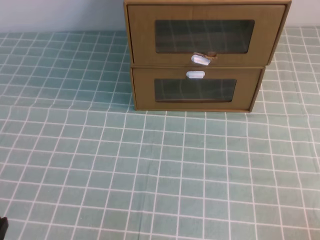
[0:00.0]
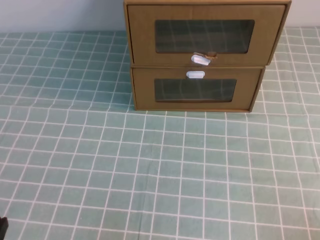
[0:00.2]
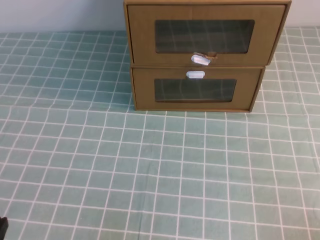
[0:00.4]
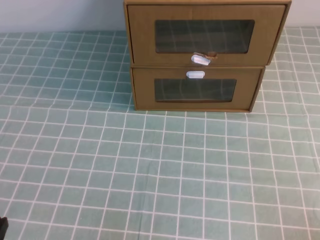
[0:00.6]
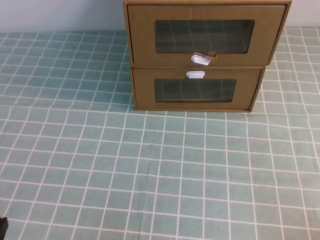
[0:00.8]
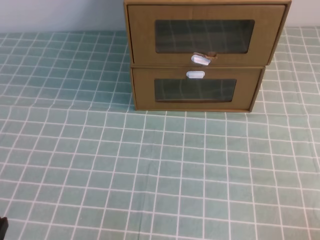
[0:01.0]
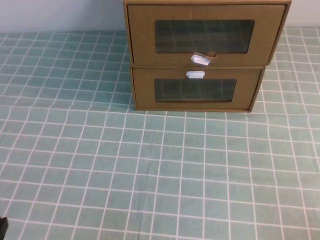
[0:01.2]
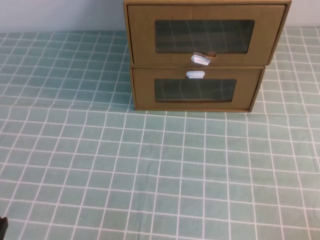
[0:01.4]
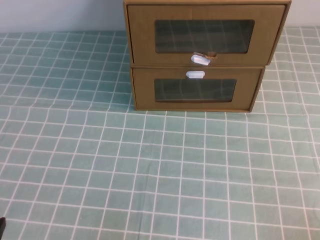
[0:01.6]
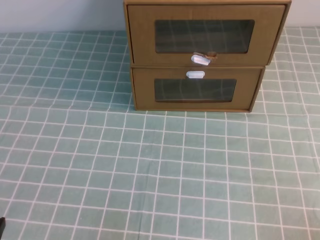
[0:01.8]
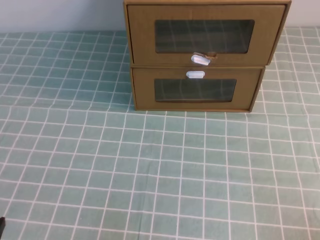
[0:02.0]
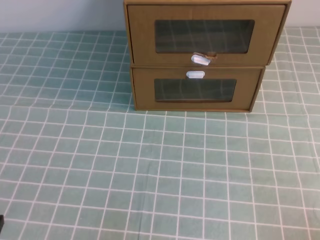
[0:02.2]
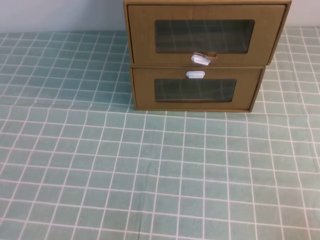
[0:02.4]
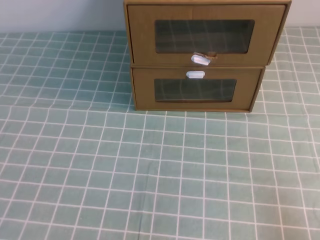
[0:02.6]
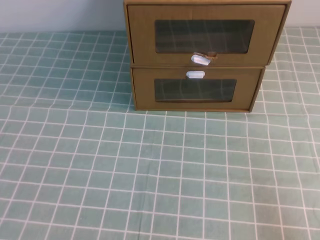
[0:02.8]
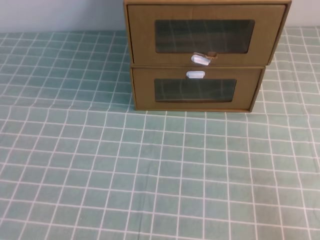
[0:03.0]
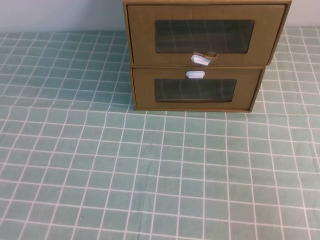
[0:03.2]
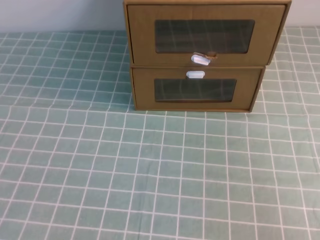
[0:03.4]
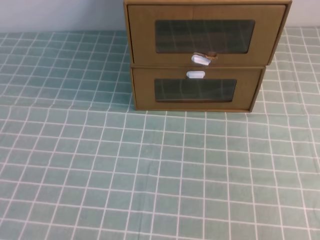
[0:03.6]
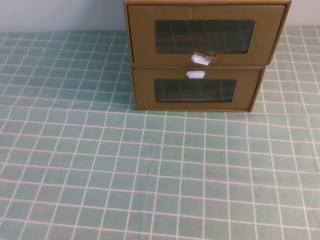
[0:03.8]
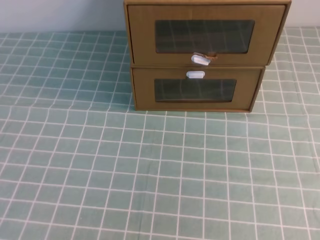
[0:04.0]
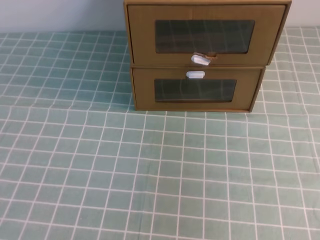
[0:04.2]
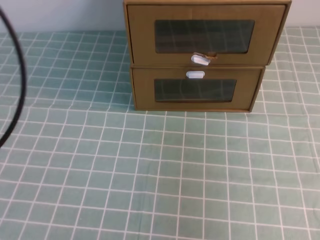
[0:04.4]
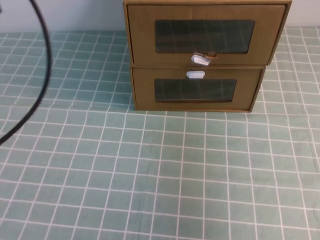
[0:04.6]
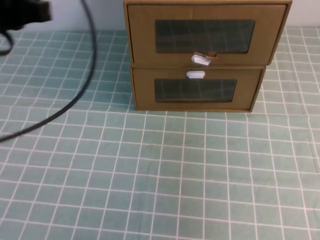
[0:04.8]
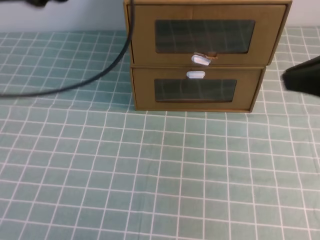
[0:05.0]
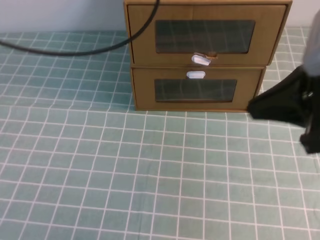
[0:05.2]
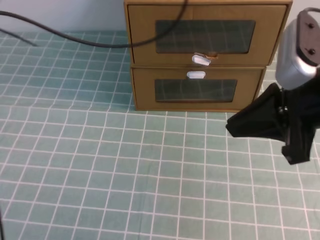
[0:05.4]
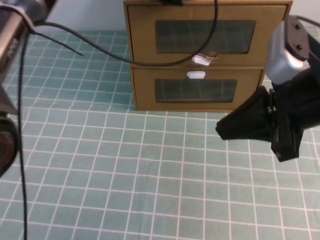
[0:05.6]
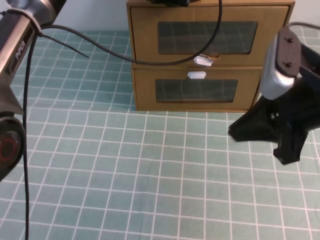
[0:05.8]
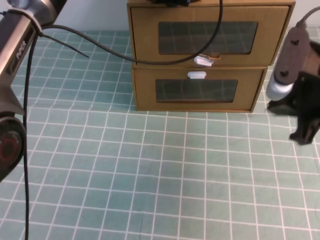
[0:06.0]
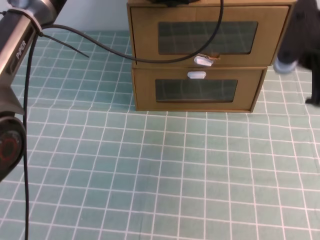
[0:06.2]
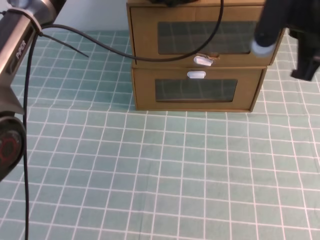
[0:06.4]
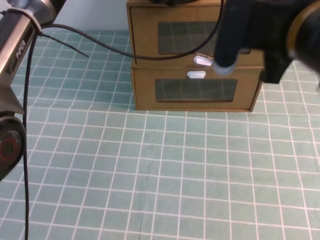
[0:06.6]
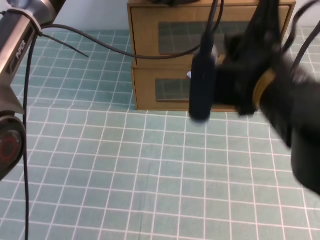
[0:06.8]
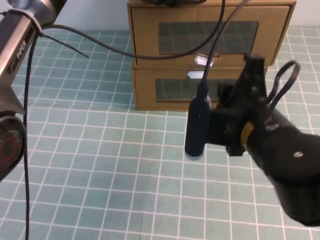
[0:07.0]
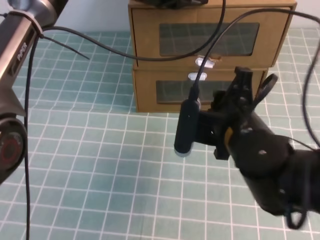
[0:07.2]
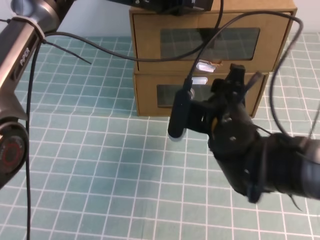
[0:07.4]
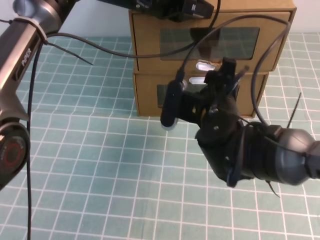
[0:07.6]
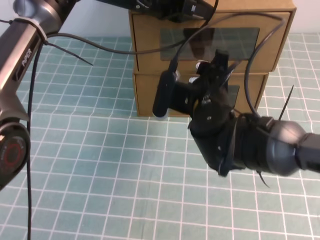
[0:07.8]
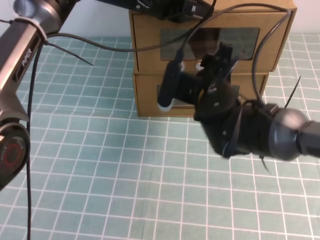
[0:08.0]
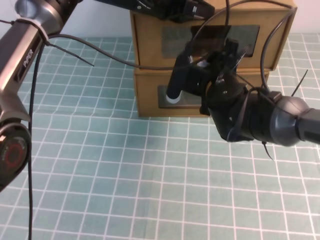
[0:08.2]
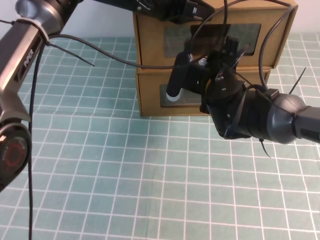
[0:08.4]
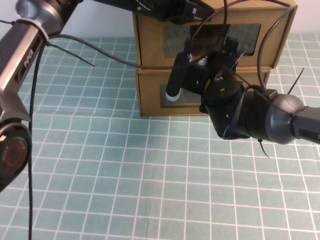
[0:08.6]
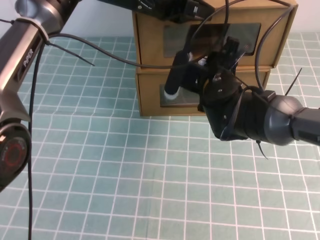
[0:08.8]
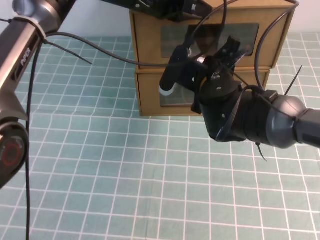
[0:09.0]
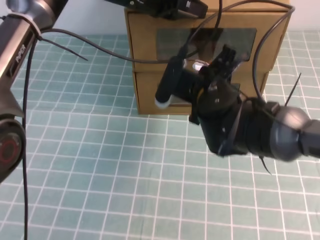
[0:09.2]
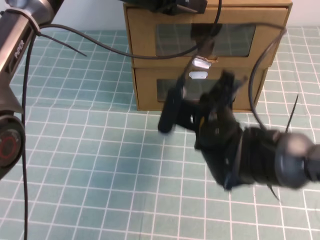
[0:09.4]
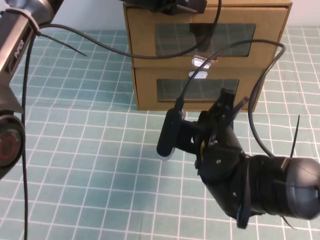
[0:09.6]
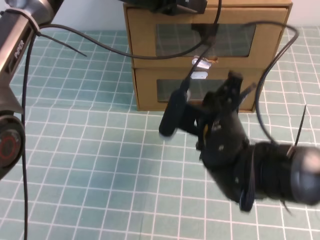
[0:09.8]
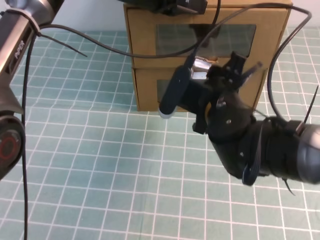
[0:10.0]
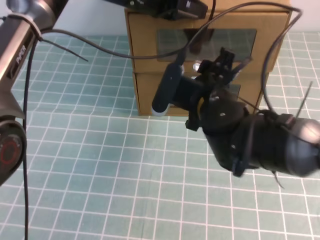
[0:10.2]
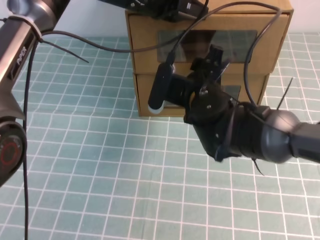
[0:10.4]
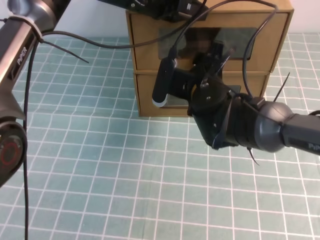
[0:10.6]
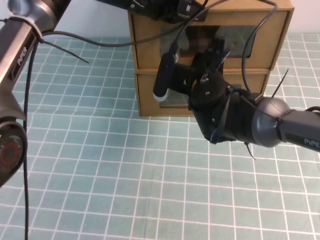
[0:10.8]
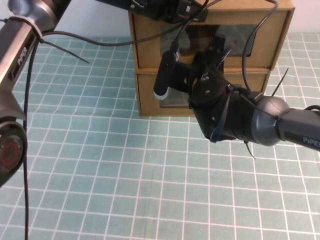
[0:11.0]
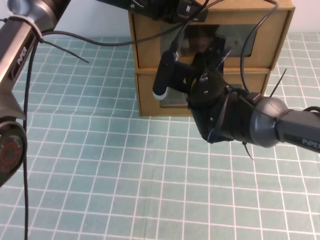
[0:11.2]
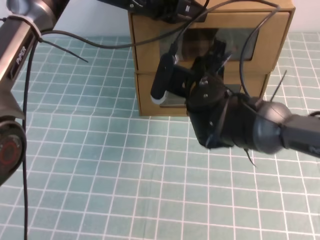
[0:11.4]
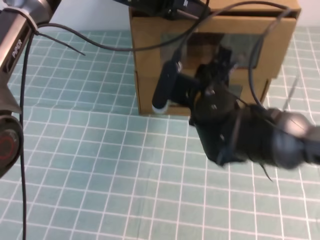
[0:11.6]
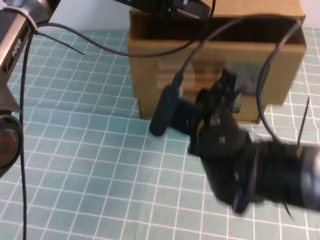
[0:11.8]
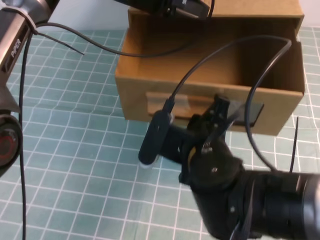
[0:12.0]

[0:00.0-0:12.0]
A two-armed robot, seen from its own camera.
Task of the whole recording: open the shoebox on the cyan tablecloth.
0:00.0 to 0:01.6: The two grippers keep their place.
0:03.0 to 0:04.4: The right gripper travels upward by approximately 25 cm. The left gripper goes approximately 25 cm upward and forward.
0:04.4 to 0:06.0: The left gripper shifts roughly 35 cm forward and to the right. The right gripper heads forward, downward and to the left, covering roughly 20 cm.
0:06.0 to 0:07.6: The right gripper is displaced to the left and downward by about 15 cm, and opens up.
0:07.6 to 0:09.0: The right gripper travels forward by approximately 5 cm, and closes.
0:09.0 to 0:10.4: The right gripper reaches approximately 10 cm backward, then returns, and opens its fingers.
0:10.4 to 0:12.0: The right gripper shifts approximately 10 cm backward, and closes.

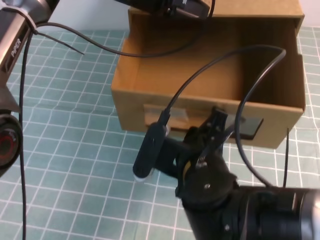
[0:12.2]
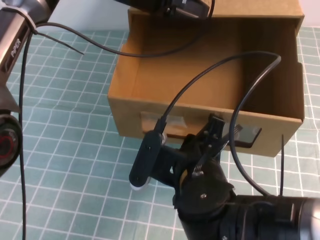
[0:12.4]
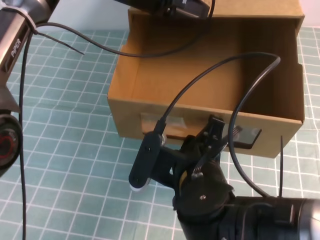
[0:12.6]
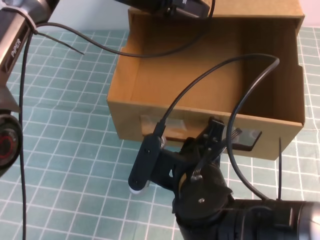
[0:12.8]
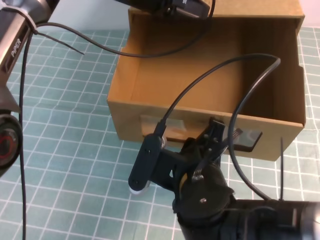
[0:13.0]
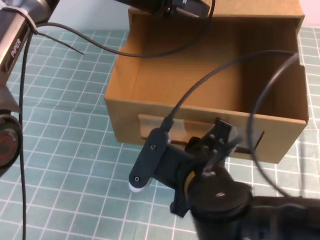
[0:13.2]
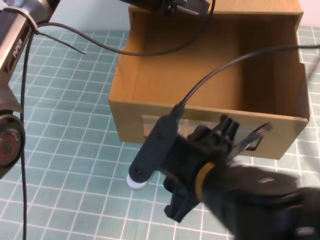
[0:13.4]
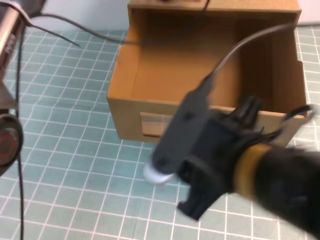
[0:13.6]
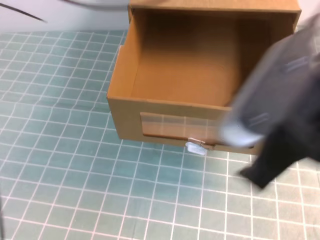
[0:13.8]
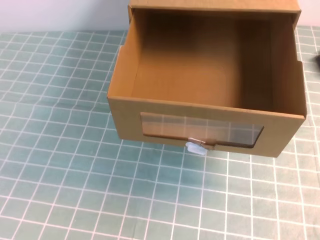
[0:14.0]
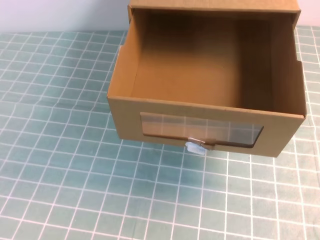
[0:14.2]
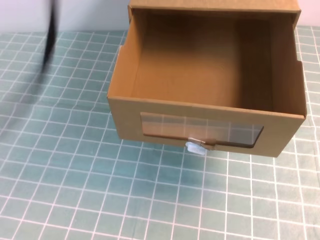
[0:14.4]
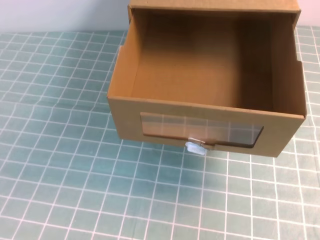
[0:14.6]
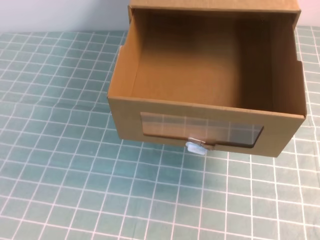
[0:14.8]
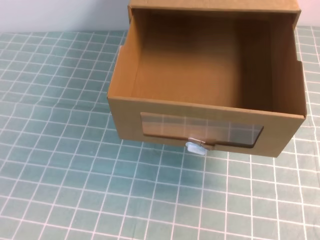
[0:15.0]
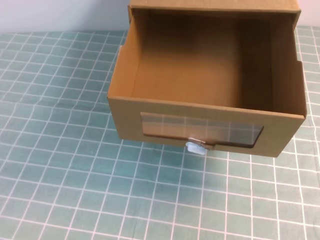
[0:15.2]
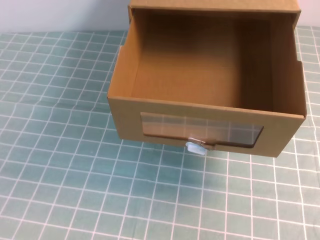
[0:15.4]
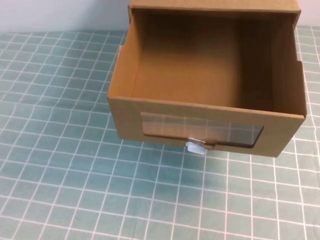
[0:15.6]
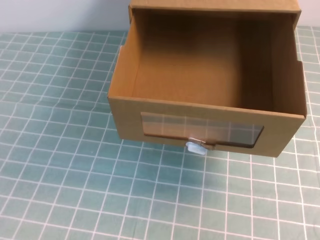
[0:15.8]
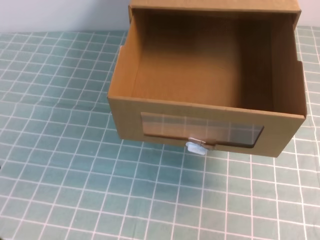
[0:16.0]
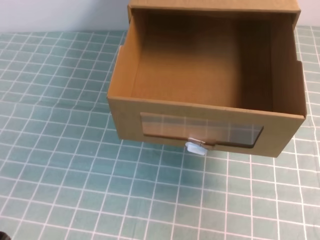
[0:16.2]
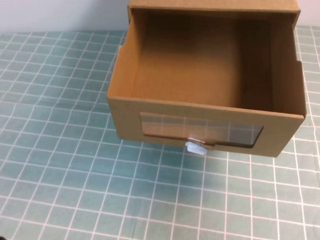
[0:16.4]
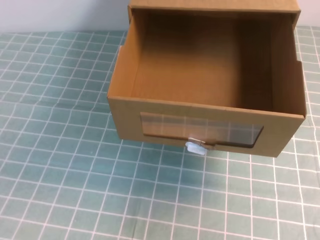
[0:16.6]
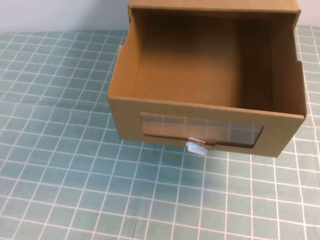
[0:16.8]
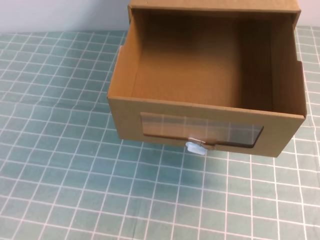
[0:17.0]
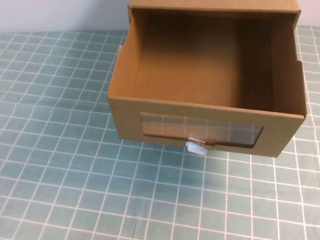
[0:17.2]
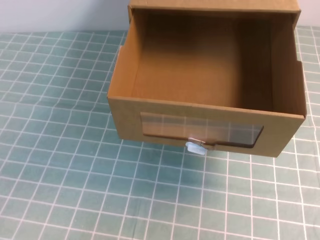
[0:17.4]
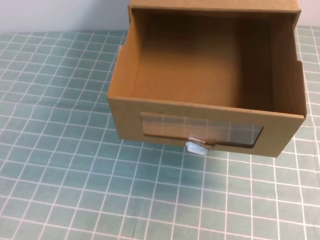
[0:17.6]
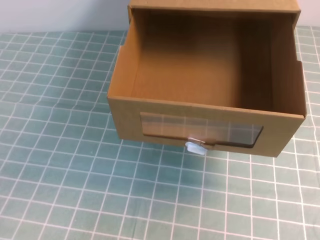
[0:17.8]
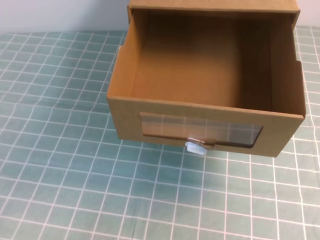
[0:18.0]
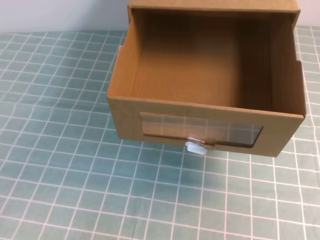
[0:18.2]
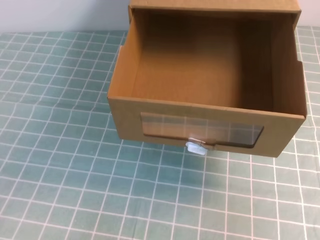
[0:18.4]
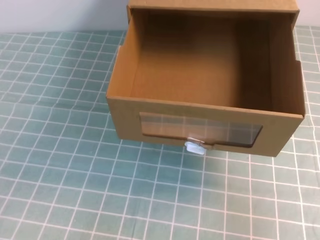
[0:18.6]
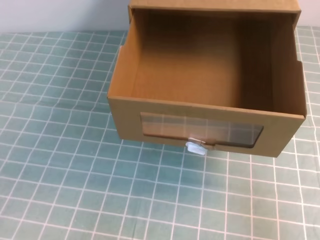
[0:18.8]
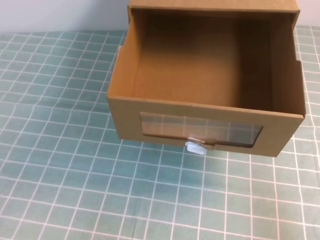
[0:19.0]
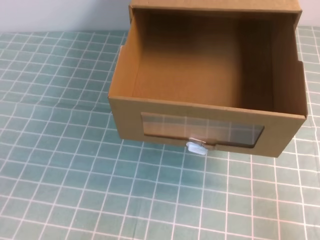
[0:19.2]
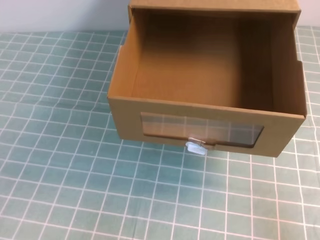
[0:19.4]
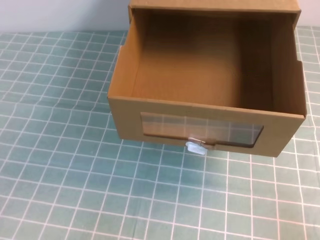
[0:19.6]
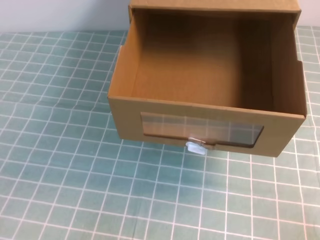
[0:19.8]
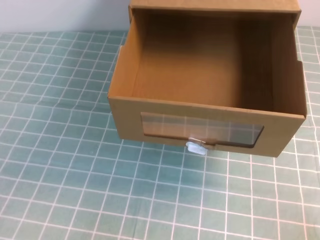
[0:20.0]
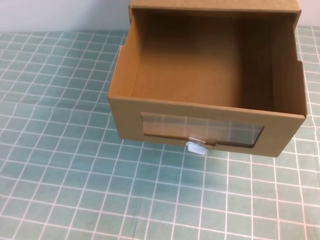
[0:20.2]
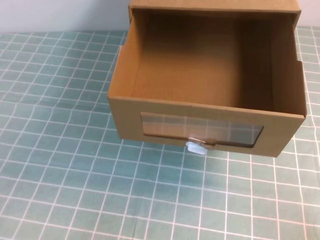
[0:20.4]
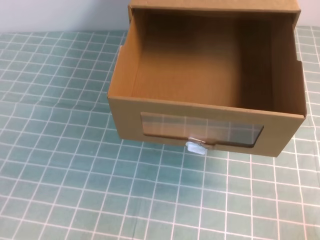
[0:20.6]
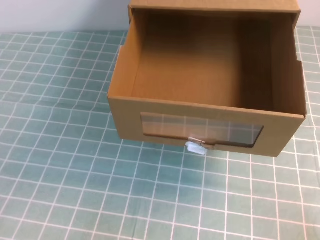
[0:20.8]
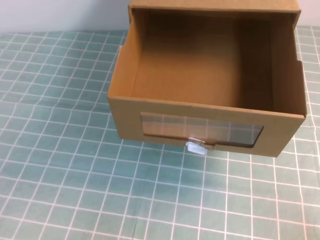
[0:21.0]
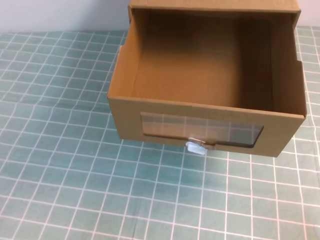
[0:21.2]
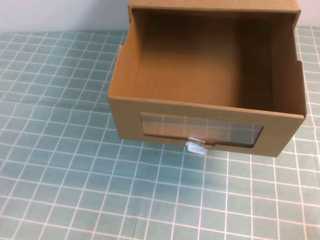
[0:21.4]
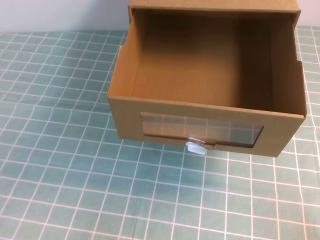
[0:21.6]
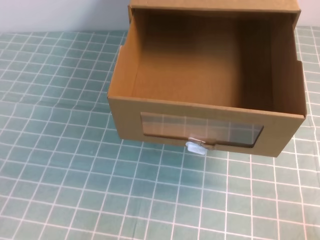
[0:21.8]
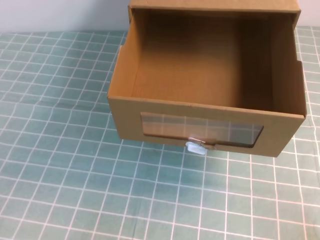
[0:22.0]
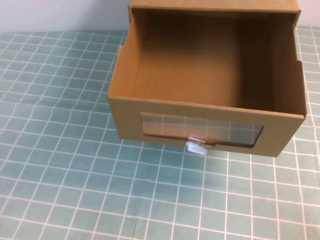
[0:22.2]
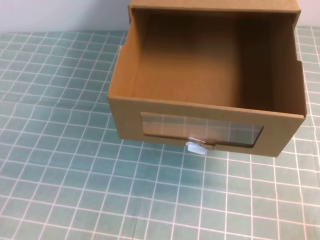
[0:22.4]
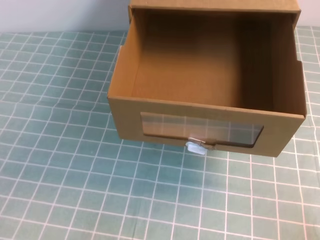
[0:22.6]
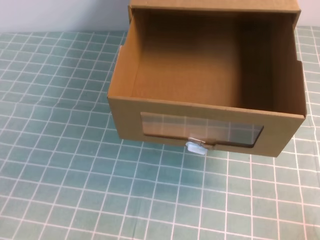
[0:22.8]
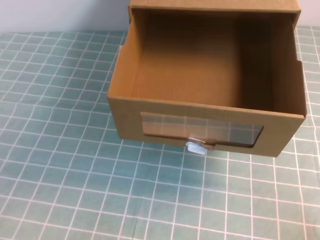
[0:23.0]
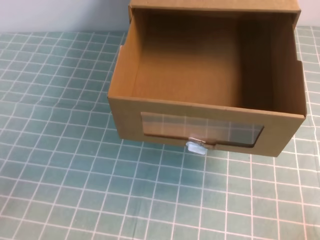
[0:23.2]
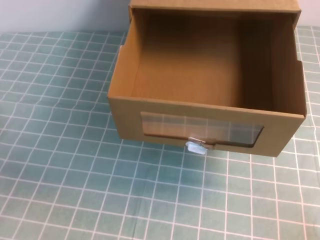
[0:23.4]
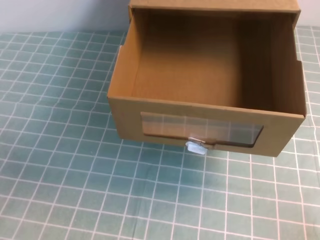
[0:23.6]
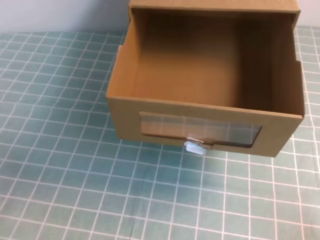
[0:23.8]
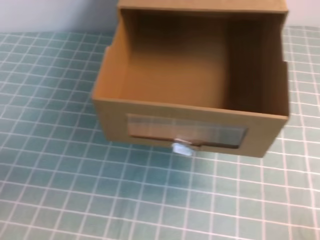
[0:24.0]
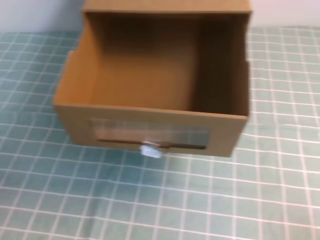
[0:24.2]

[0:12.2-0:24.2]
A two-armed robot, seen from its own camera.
Task of the whole recording: open the shoebox on the cyan tablecloth.
Step, 0:12.2 to 0:24.2: Open the shoe box.
0:12.2 to 0:13.8: The right gripper goes roughly 20 cm upward, to the right and backward, and opens and closes again; the left gripper shifts about 10 cm upward and backward.
0:13.8 to 0:15.2: The left gripper is displaced backward and to the left by some 40 cm. Meanwhile the right gripper shifts approximately 15 cm to the right, and closes its fingers.
0:18.2 to 0:19.8: The right gripper moves downward, roughly 15 cm.
0:19.8 to 0:22.6: Both grippers stay put.
